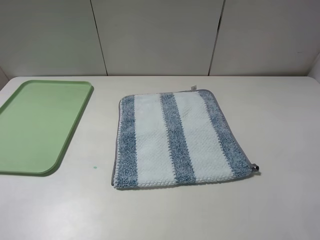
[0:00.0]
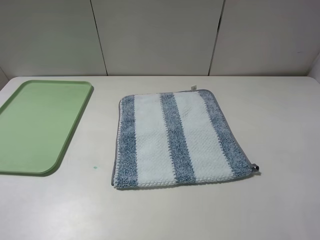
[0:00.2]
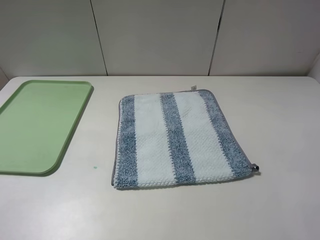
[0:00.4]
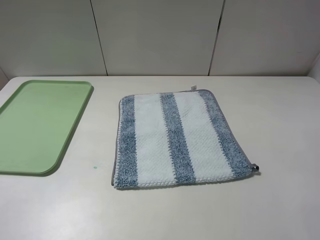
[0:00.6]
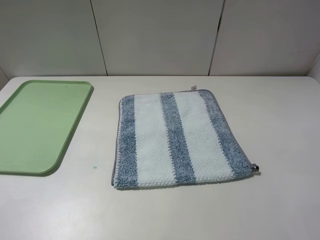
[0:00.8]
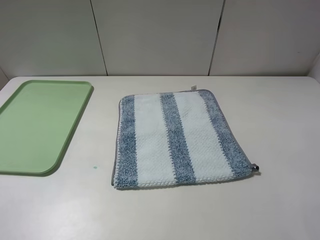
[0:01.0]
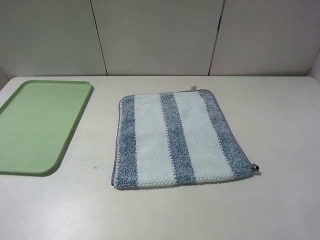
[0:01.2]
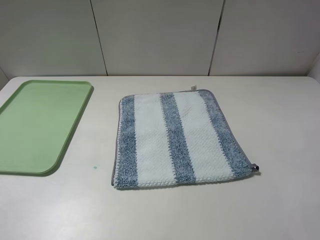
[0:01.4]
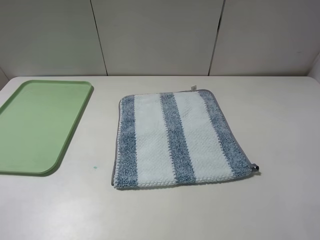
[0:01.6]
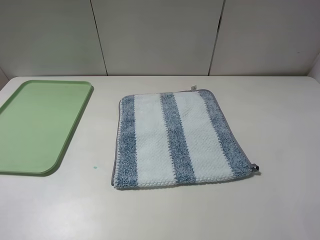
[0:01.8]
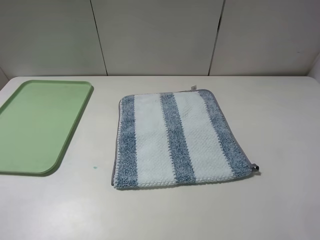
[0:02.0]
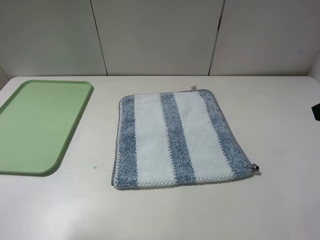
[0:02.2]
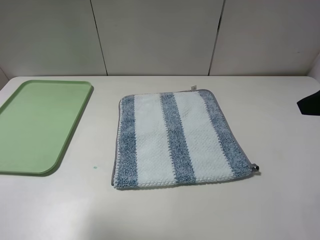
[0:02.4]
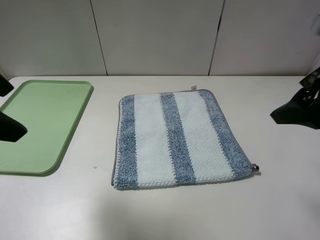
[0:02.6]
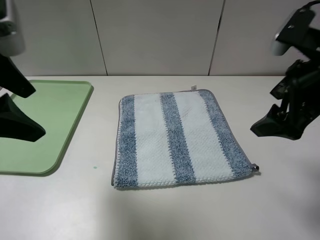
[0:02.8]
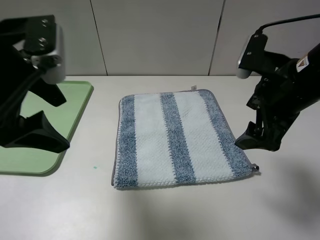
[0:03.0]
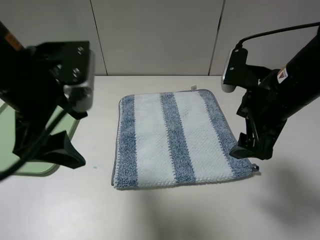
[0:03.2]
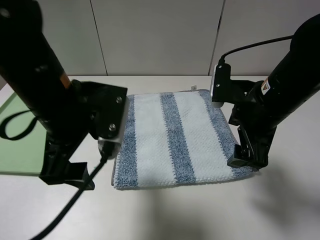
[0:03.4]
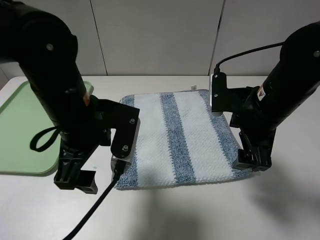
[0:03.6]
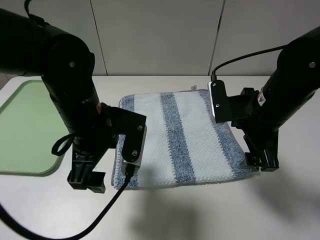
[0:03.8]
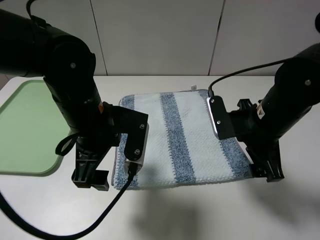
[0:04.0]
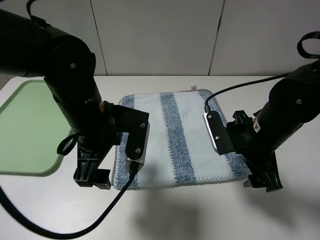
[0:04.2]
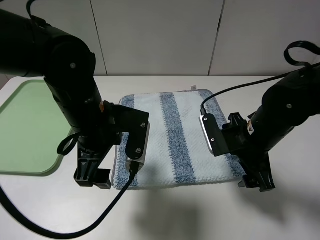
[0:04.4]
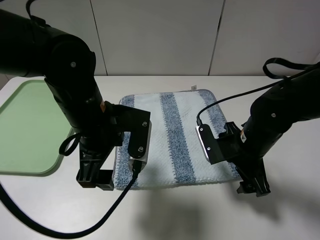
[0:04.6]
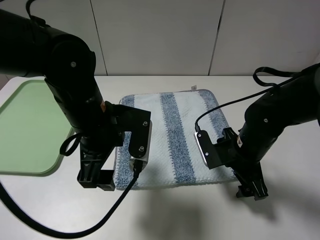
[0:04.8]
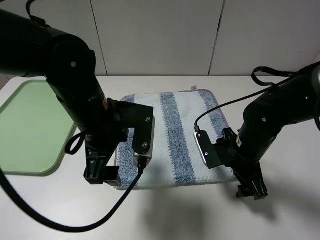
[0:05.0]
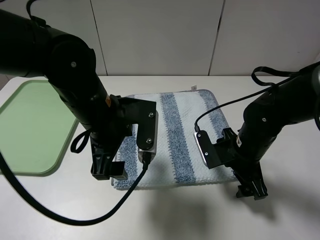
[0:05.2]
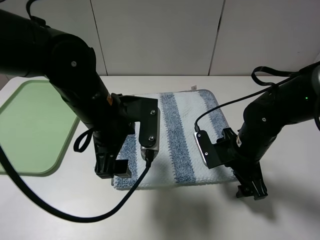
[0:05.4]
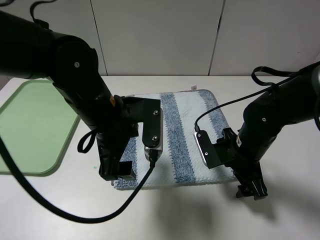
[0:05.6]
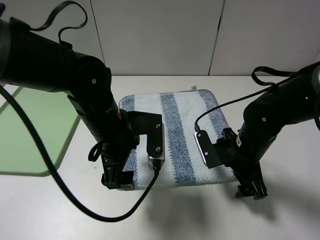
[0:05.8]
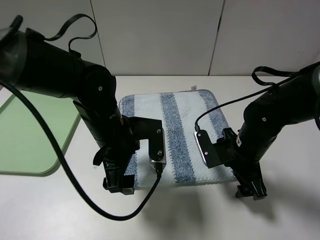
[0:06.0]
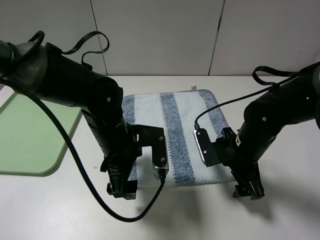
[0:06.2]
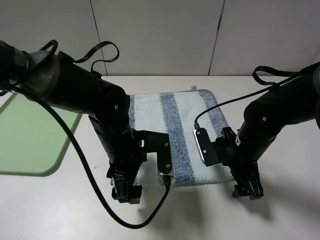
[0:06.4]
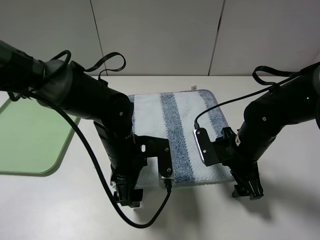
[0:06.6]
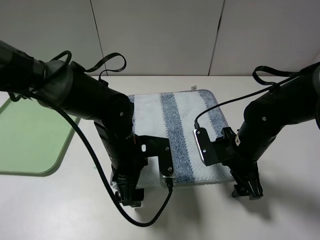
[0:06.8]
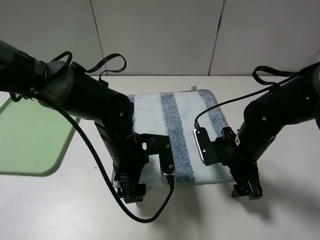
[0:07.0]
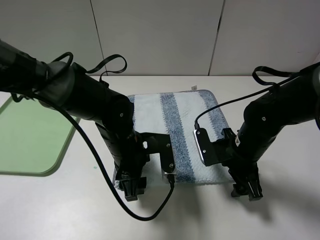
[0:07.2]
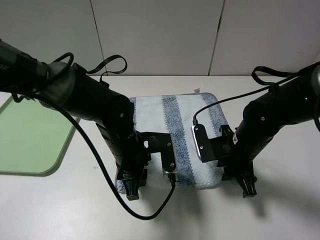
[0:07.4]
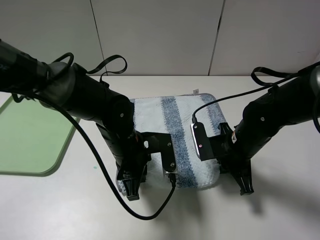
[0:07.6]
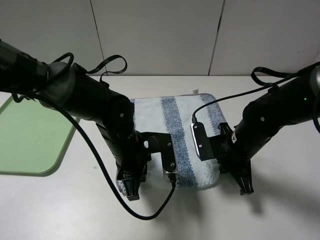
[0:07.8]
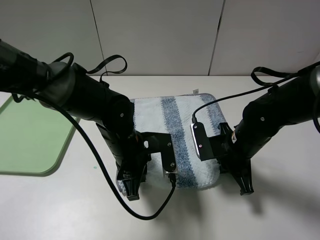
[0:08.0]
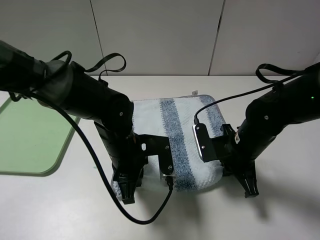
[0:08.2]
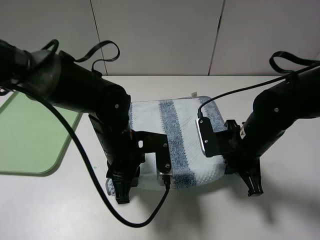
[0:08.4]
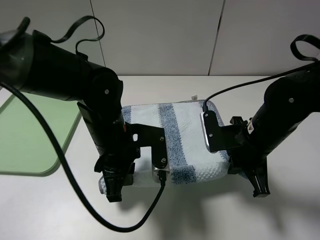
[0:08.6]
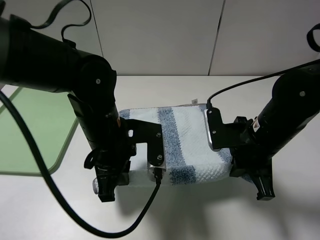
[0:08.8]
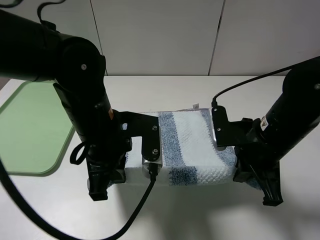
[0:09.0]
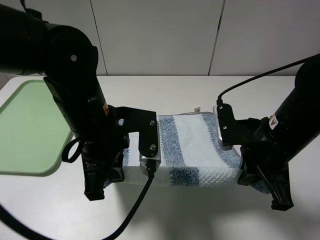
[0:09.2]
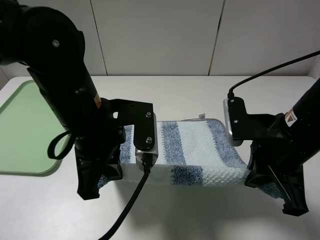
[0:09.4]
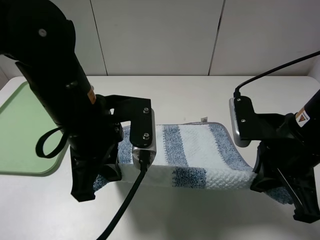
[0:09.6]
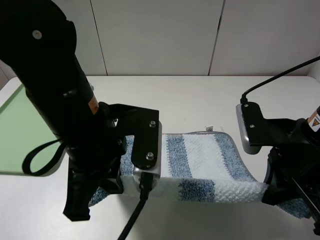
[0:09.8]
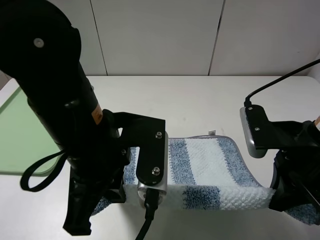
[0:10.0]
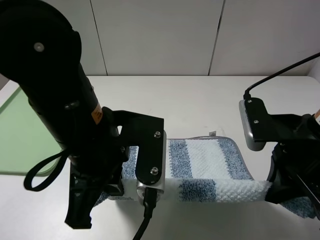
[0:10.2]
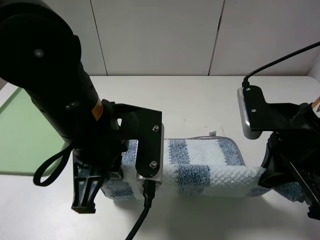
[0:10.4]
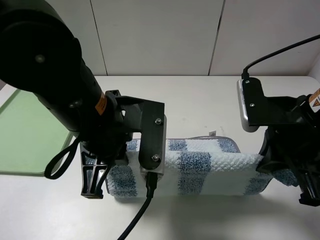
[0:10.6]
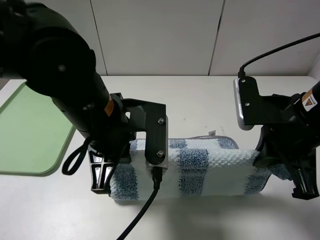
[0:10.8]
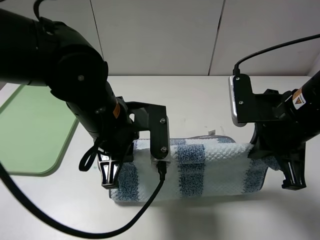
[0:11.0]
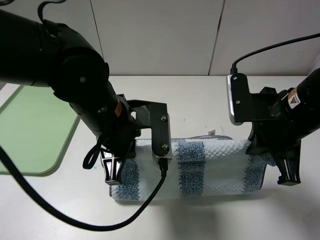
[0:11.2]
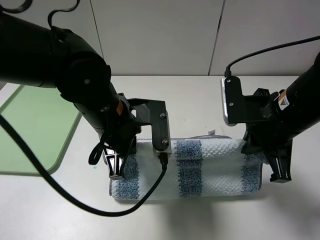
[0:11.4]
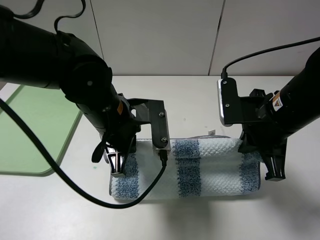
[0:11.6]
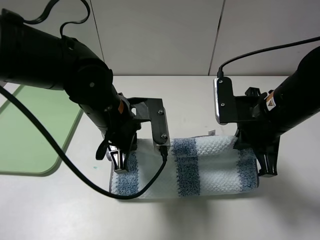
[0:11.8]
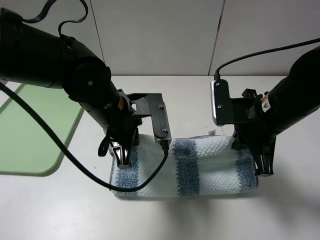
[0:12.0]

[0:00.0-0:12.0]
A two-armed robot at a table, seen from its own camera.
Step, 0:00.0 to 0:08.2: Grasp the blue white towel with the left gripper.
0:01.6 to 0:03.0: The left gripper shifts about 20 cm forward and to the right, while the right gripper shifts some 20 cm forward and to the left.
0:03.0 to 0:04.4: The left gripper heads downward and to the right, covering approximately 15 cm. The right gripper heads downward, covering about 10 cm.
0:04.4 to 0:06.0: The left gripper moves about 5 cm.
0:06.0 to 0:07.6: The right gripper closes. Meanwhile the left gripper closes.
0:07.6 to 0:09.0: The grippers both shift upward by approximately 10 cm.
0:09.0 to 0:10.4: The right gripper is displaced upward by some 5 cm; the left gripper shifts by approximately 5 cm.
0:10.4 to 0:12.0: The left gripper goes approximately 10 cm forward and downward, while the right gripper heads forward, covering roughly 5 cm.

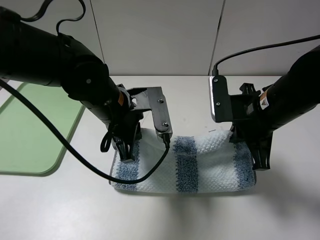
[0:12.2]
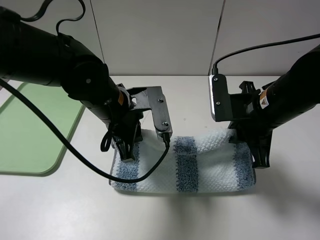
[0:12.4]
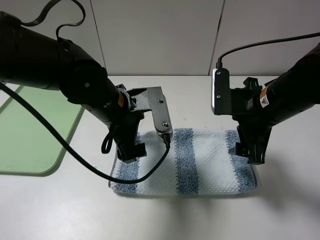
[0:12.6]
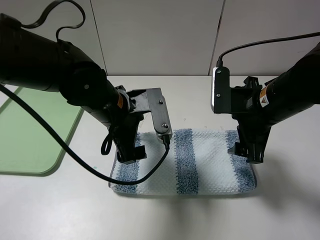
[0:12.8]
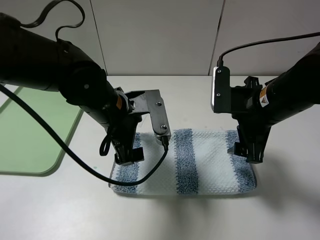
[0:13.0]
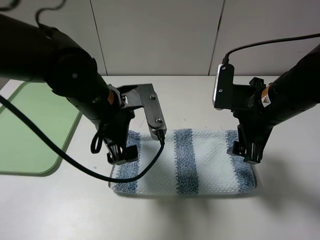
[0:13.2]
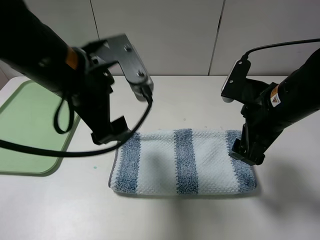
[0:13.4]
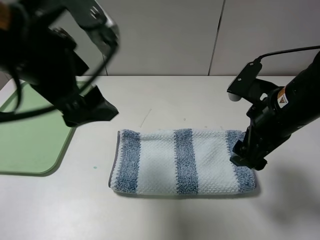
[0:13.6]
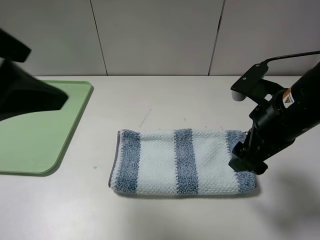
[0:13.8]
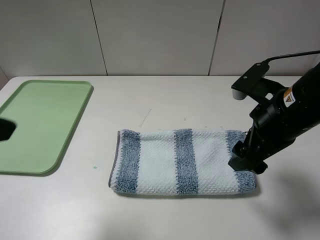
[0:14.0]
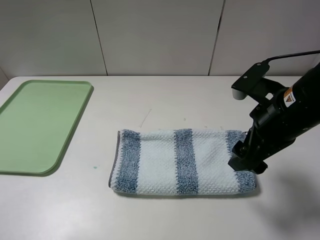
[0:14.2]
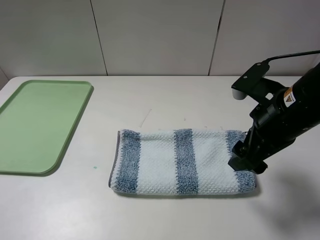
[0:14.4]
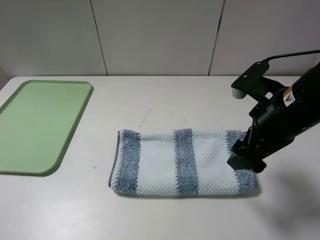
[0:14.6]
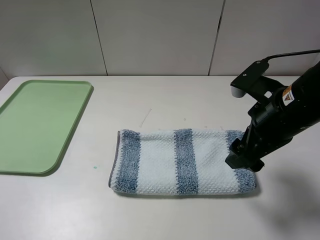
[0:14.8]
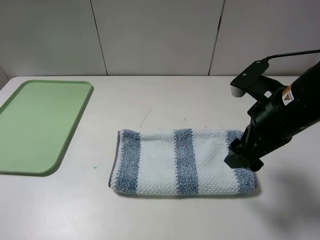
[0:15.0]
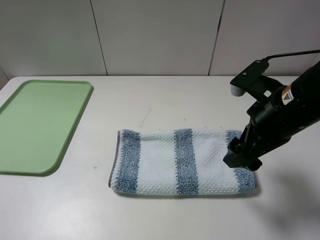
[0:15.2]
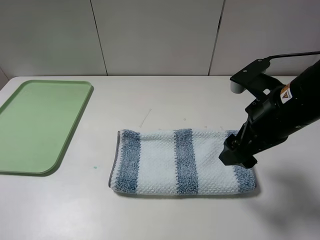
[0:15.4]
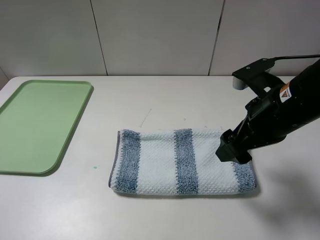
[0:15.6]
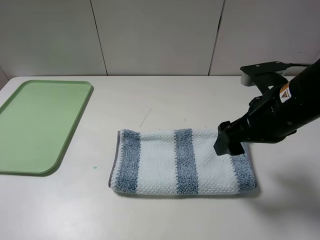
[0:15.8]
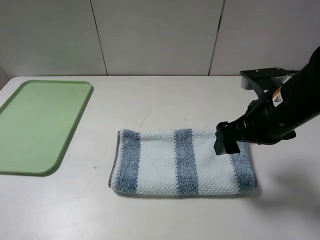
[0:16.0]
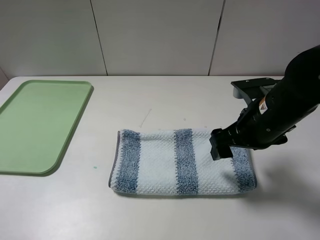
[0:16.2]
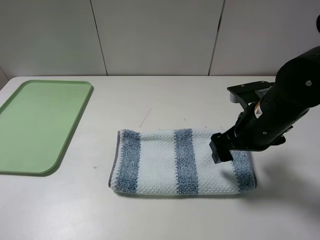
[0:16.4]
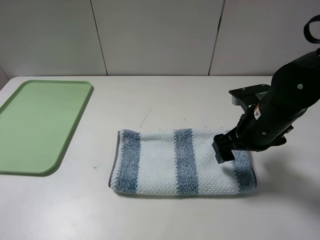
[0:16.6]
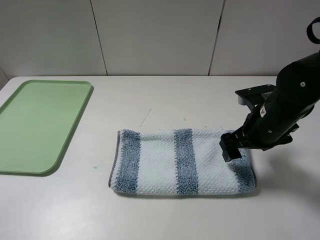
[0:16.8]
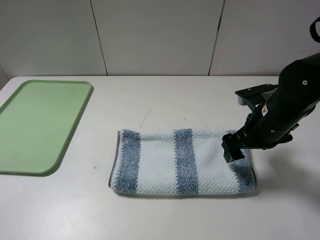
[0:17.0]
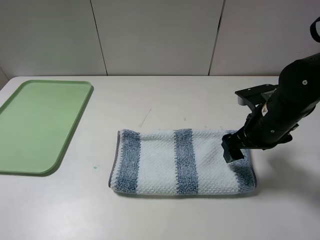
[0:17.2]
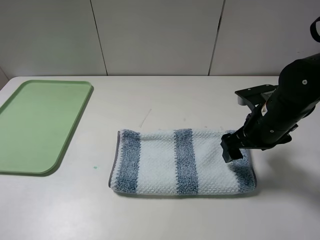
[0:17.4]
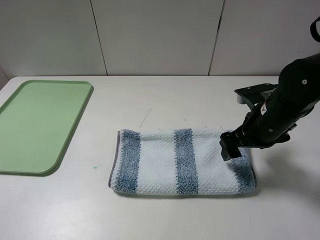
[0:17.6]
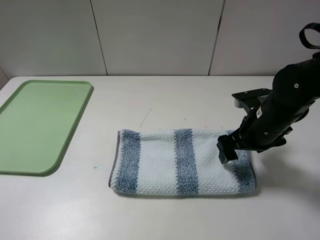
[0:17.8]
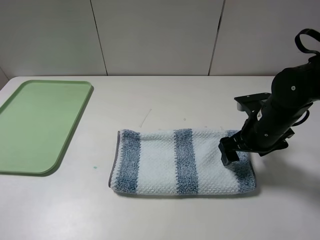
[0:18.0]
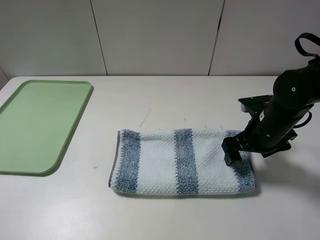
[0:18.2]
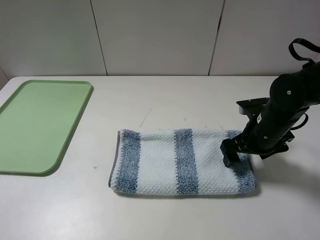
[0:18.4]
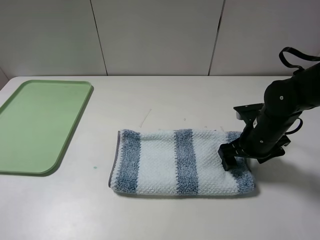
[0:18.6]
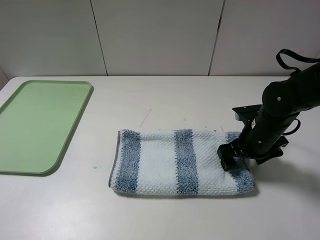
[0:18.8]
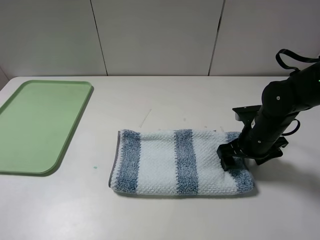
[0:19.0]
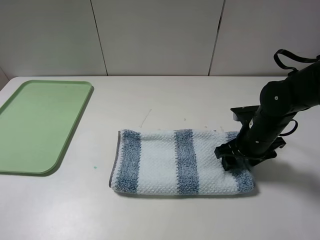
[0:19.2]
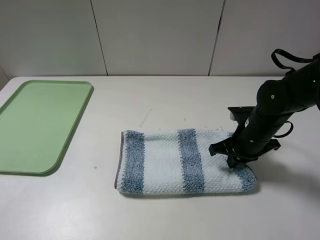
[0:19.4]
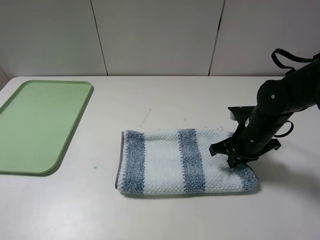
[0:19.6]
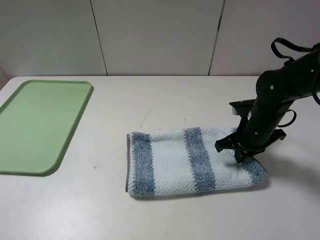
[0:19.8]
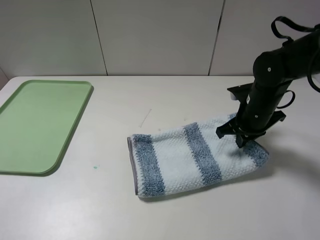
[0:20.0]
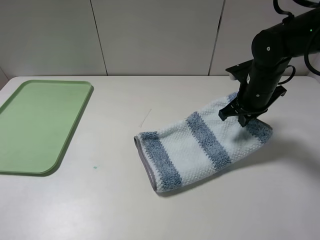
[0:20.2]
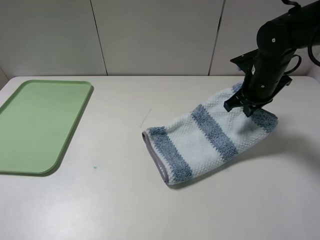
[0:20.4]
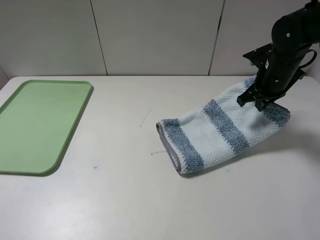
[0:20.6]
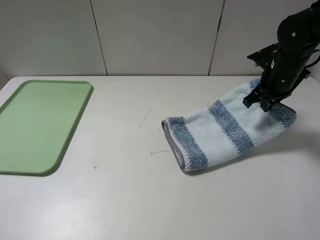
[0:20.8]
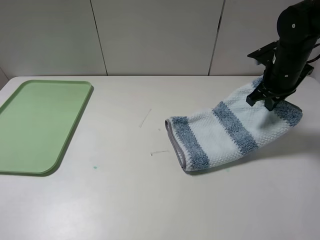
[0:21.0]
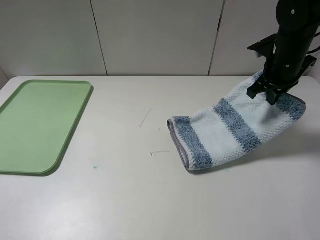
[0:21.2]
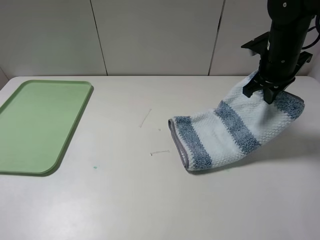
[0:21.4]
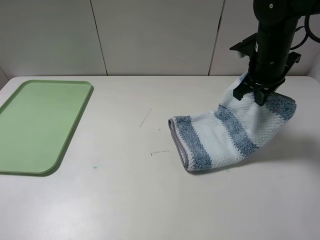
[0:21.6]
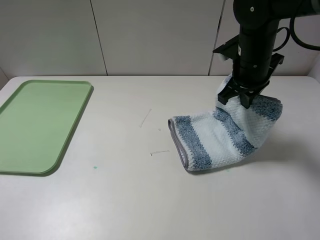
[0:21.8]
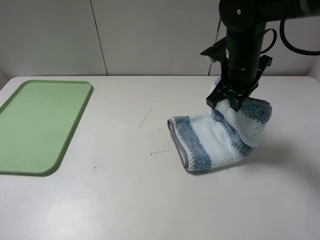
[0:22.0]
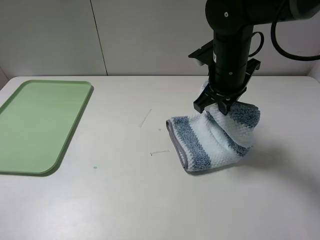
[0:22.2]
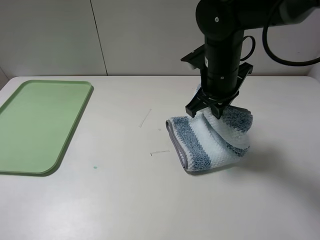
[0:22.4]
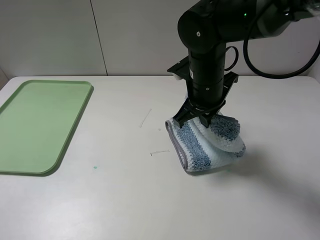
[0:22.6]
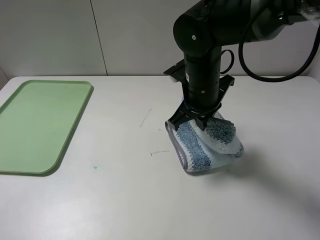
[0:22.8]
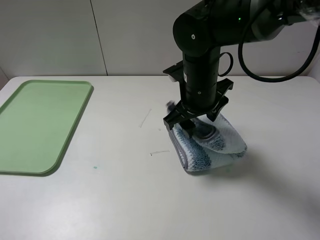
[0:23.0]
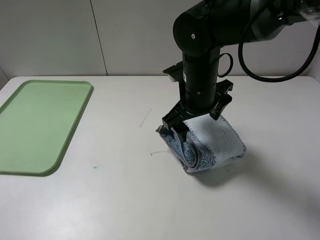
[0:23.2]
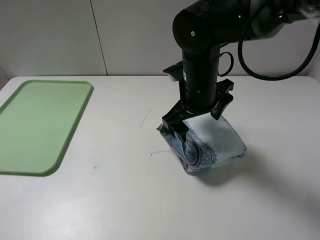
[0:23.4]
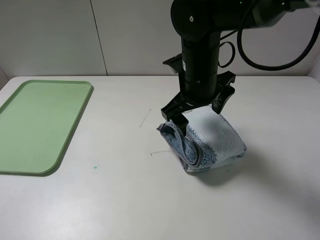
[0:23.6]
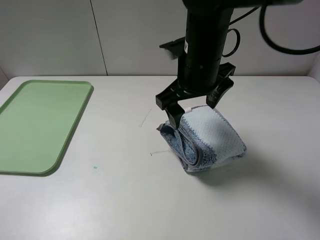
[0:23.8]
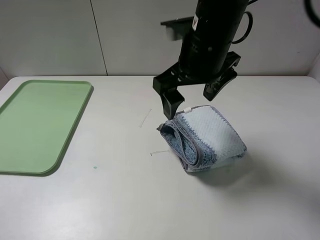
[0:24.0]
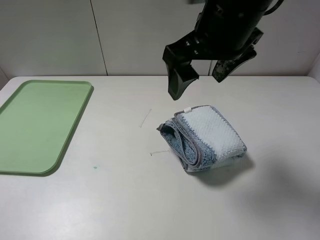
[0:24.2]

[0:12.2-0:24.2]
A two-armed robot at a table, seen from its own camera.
Step, 0:13.4 to 0:19.6: Grasp the blue white towel with the right gripper.
Step, 0:19.8 to 0:23.8: Fold the blue white towel from right to left with right gripper.
0:12.2 to 0:13.8: The right gripper opens. The left gripper goes approximately 25 cm upward, to the left and backward, and opens up.
0:13.8 to 0:15.2: The left gripper shifts approximately 15 cm to the left, backward and downward.
0:15.2 to 0:16.6: The right gripper goes some 5 cm downward.
0:16.6 to 0:18.2: The grippers stay close to where they were, moving slightly.
0:18.2 to 0:19.8: The right gripper closes.
0:19.8 to 0:21.2: The right gripper travels upward and forward by approximately 15 cm.
0:21.2 to 0:22.6: The right gripper goes approximately 20 cm to the left and backward.
0:22.6 to 0:24.2: The right gripper heads upward, covering roughly 15 cm, and opens.
